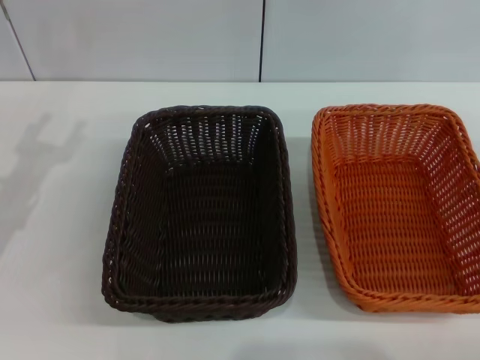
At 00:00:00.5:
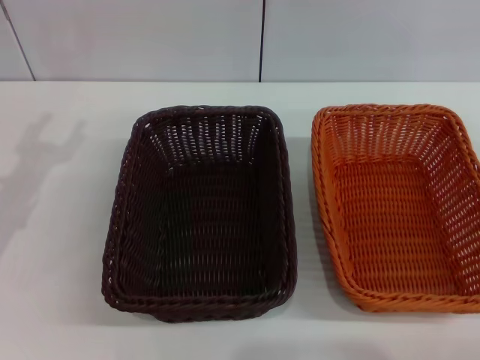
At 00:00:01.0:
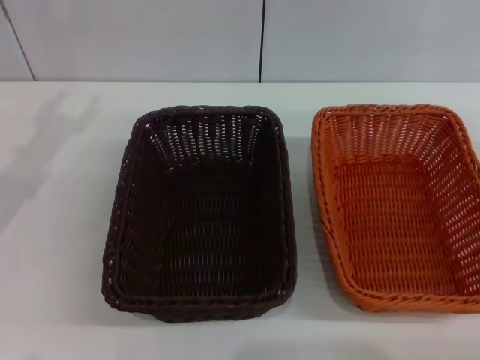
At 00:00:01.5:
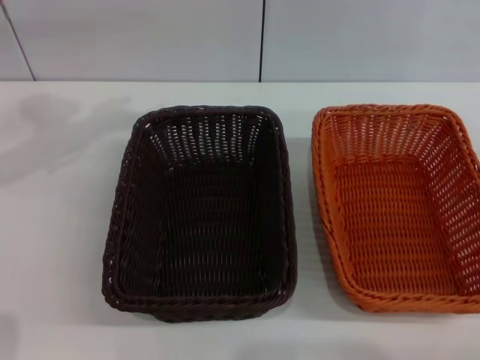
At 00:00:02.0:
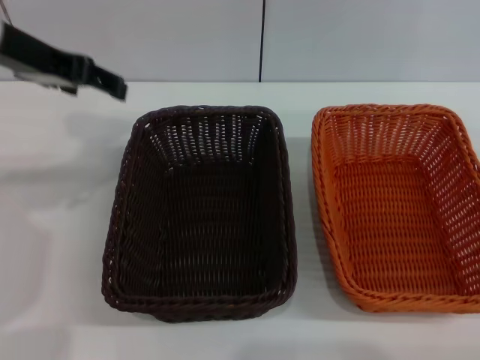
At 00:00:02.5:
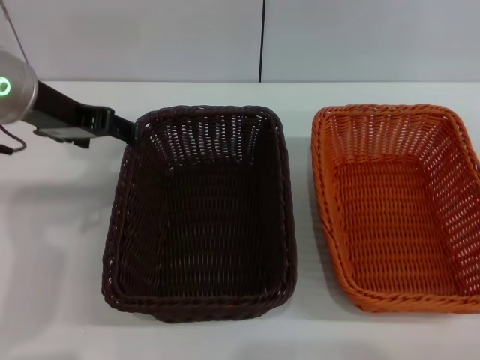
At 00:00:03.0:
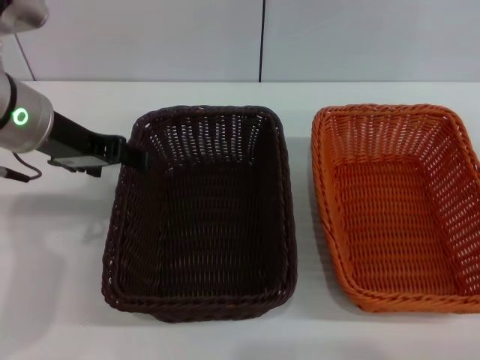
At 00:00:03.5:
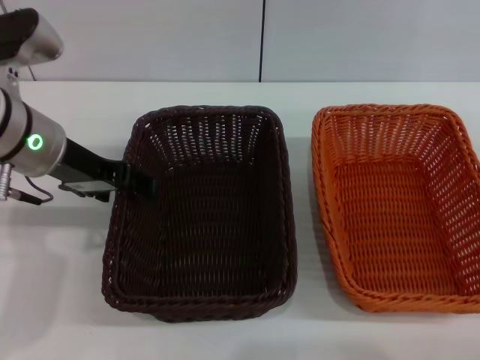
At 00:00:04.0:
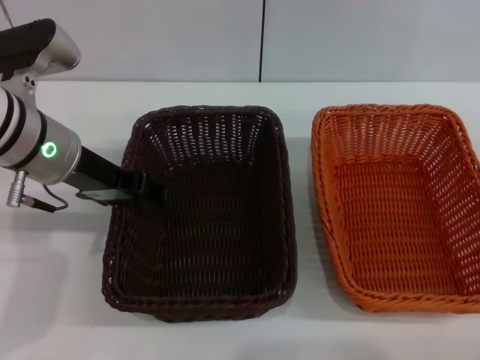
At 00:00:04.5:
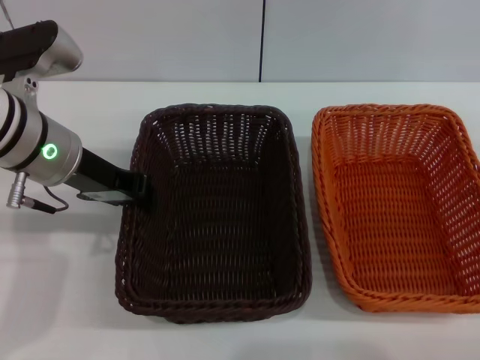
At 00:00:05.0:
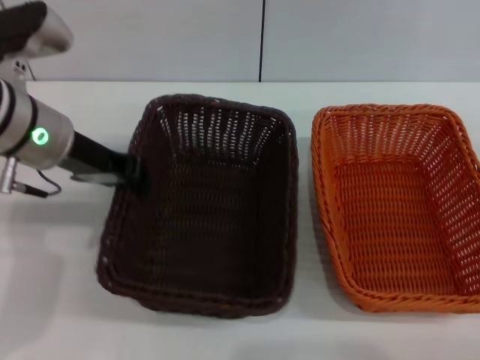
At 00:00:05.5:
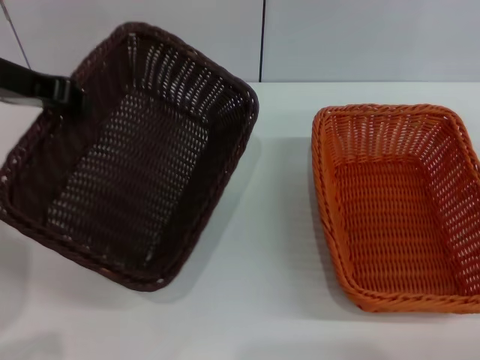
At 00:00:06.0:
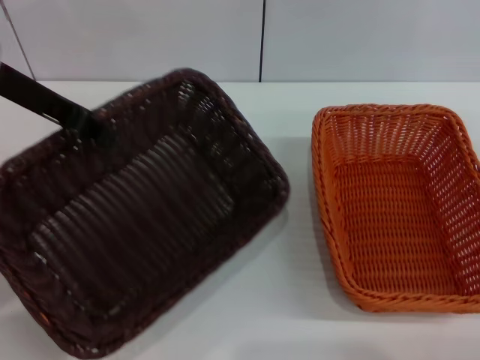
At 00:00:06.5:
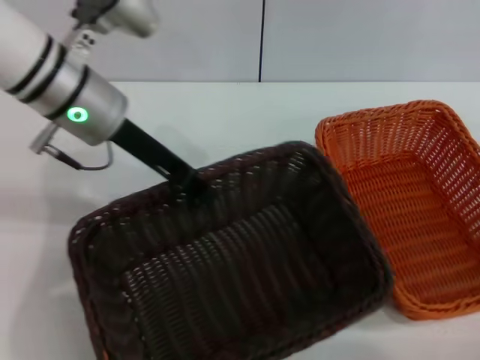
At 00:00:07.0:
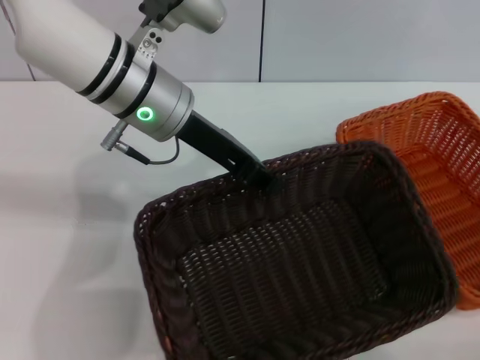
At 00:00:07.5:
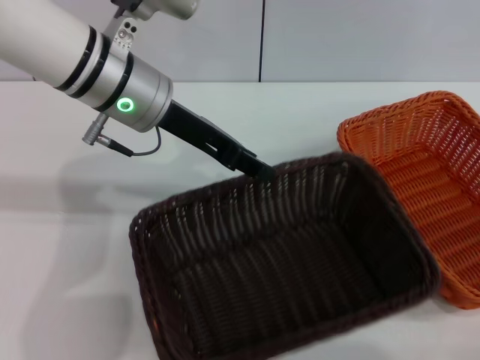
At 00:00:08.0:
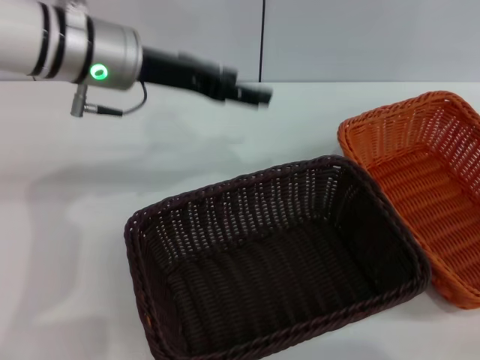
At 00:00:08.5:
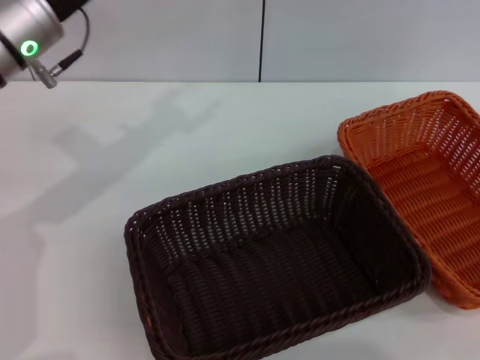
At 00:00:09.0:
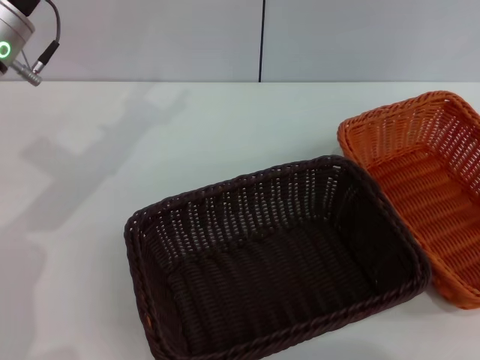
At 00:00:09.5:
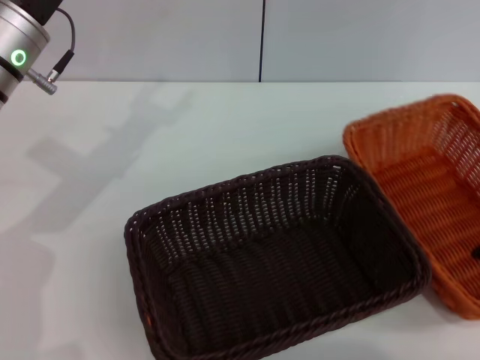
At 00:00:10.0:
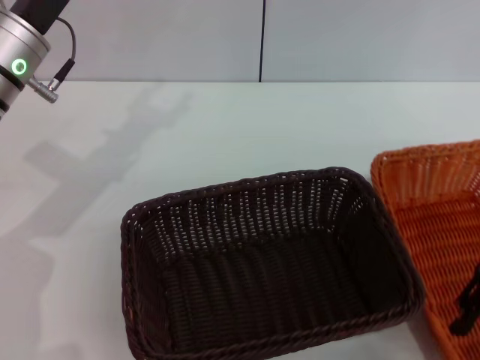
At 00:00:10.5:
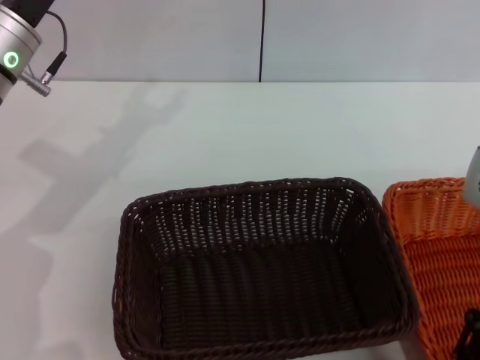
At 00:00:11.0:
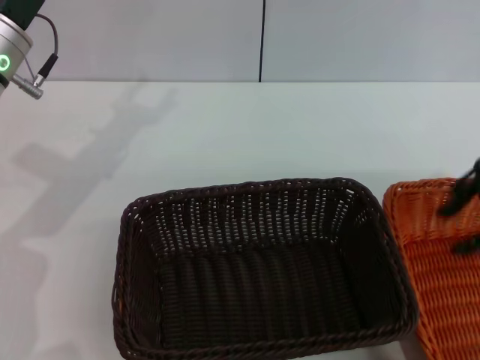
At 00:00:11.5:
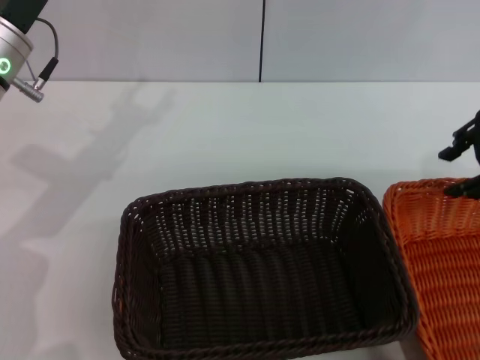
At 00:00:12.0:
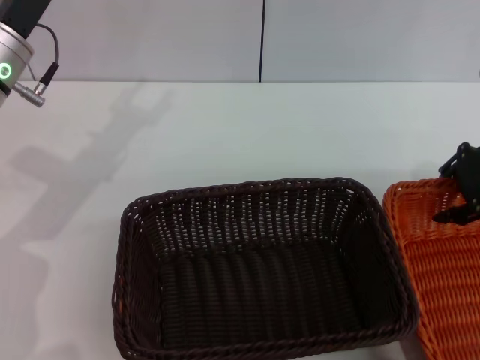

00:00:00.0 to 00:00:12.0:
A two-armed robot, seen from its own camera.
Step, 00:00:00.0 to 00:00:05.0: Pick up the dark basket with the left gripper.
Step, 00:00:05.5 to 00:00:07.5: Place the dark basket in the center of view with the left gripper.
00:00:00.0 to 00:00:02.0: The left gripper moves upward, to the right and forward, approximately 20 cm.
00:00:02.0 to 00:00:04.0: The left gripper heads downward, covering approximately 10 cm.
00:00:04.0 to 00:00:06.0: The left gripper heads upward, covering some 10 cm, and closes.
00:00:06.0 to 00:00:08.0: The left gripper travels to the right by roughly 10 cm, and opens its fingers.
00:00:08.0 to 00:00:10.0: The left gripper shifts some 5 cm to the left. Meanwhile the right gripper is displaced to the left by roughly 15 cm.
00:00:10.0 to 00:00:12.0: The right gripper goes about 10 cm forward.

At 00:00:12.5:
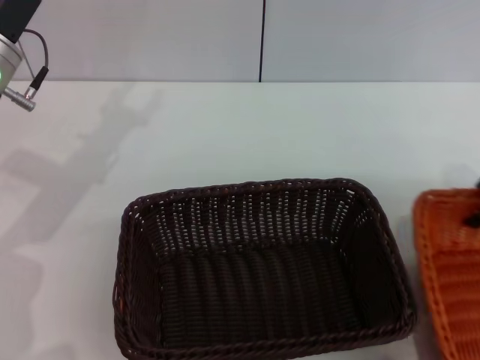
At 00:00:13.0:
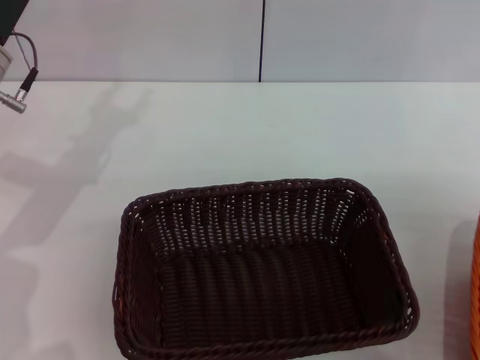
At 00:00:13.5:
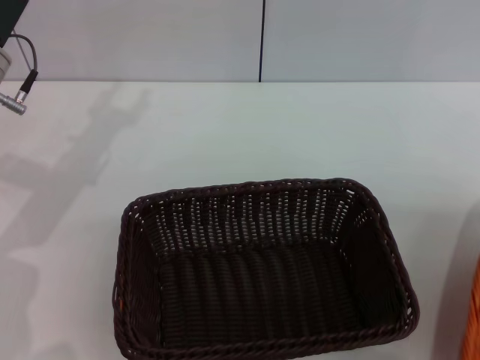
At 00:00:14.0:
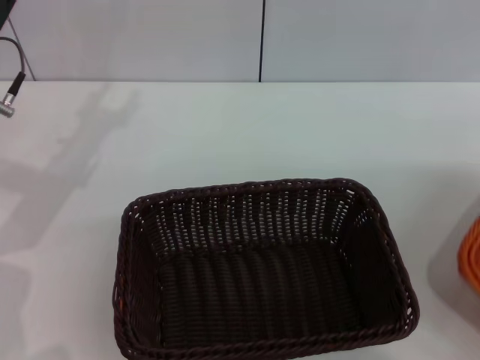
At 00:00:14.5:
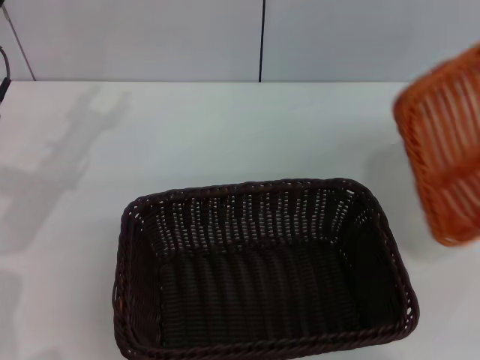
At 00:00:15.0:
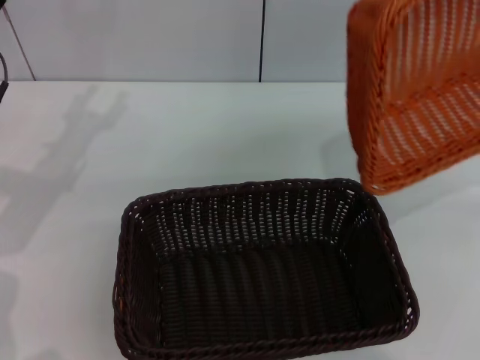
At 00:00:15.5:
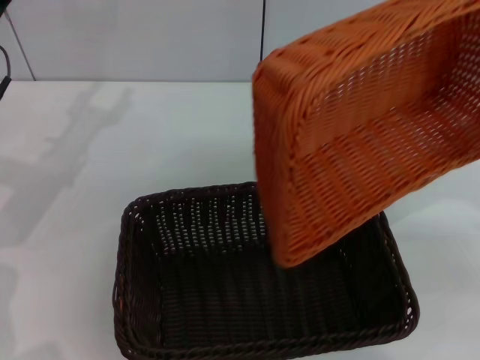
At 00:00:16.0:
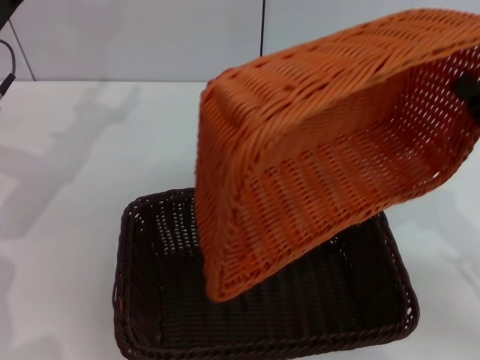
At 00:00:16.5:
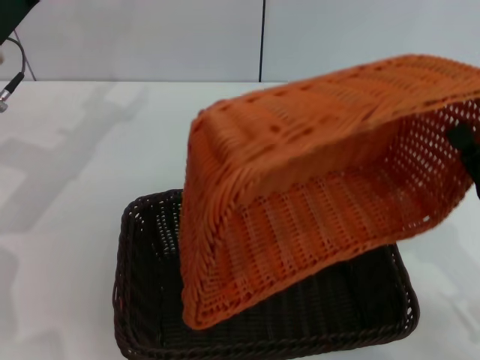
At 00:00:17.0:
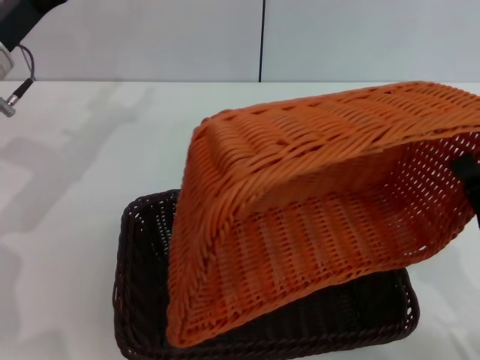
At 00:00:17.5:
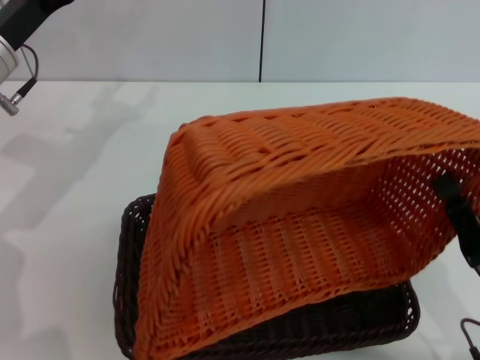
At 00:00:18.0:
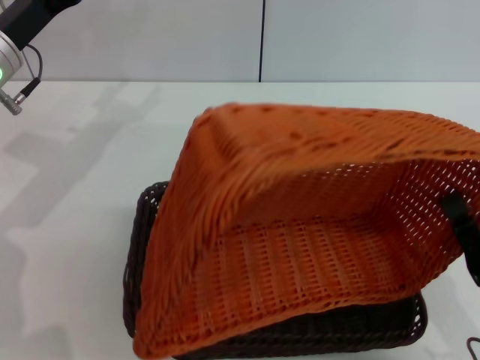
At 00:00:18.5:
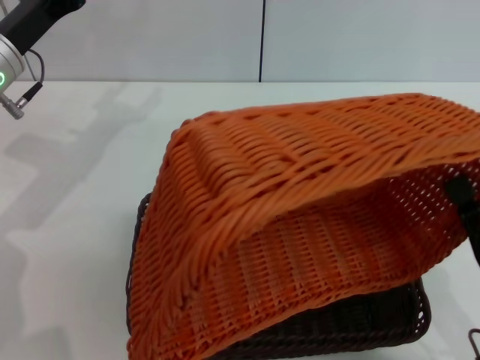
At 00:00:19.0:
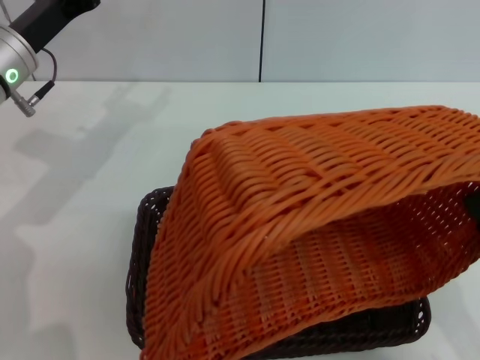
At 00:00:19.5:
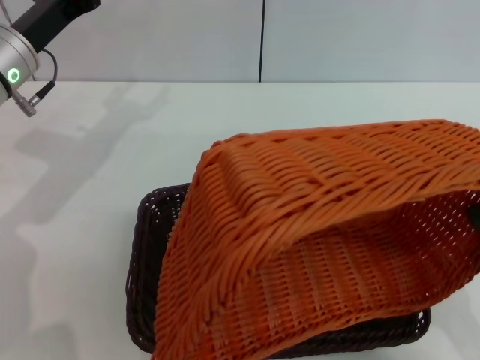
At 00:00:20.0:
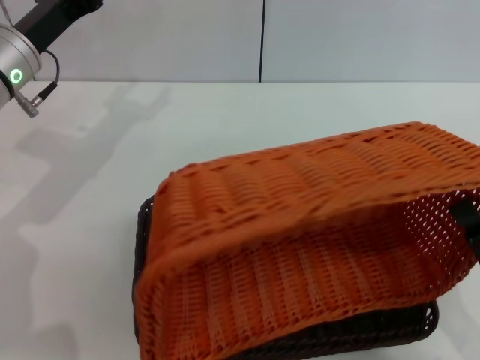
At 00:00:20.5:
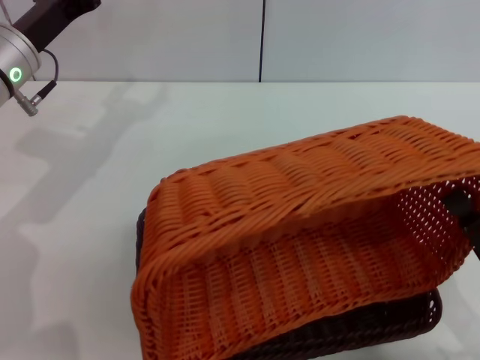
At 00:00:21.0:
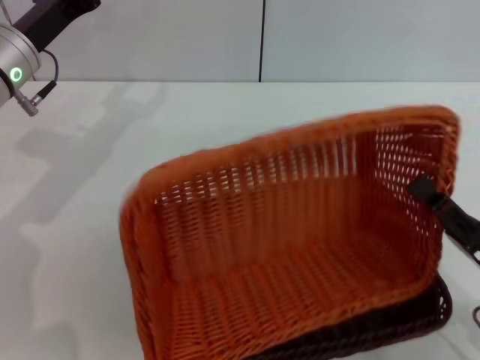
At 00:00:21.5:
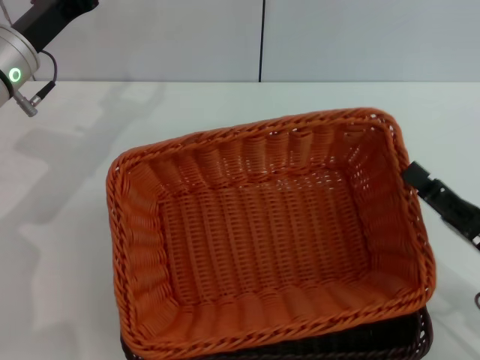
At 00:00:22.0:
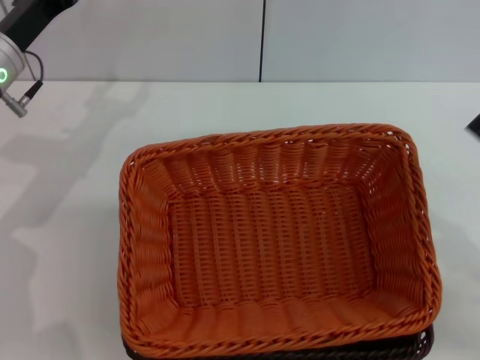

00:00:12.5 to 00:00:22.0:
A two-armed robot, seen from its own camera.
Step, 00:00:13.0 to 00:00:21.5: Place the light basket on the dark basket with the right gripper.
00:00:12.5 to 00:00:14.5: The right gripper shifts some 15 cm to the right and backward.
00:00:14.5 to 00:00:16.5: The right gripper shifts roughly 30 cm to the left, downward and backward.
00:00:16.5 to 00:00:18.0: The right gripper goes roughly 5 cm backward.
00:00:20.0 to 00:00:22.0: The right gripper moves forward, to the right and upward, approximately 15 cm, and opens up.
